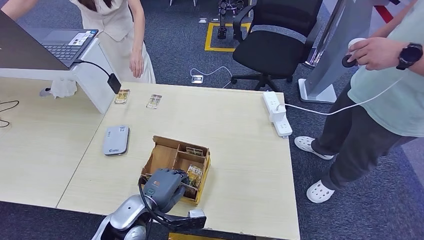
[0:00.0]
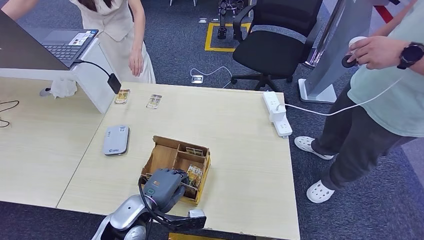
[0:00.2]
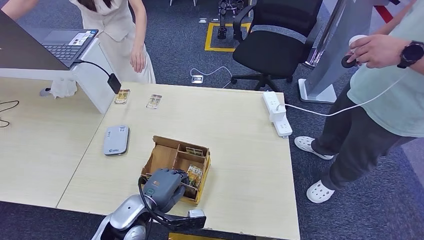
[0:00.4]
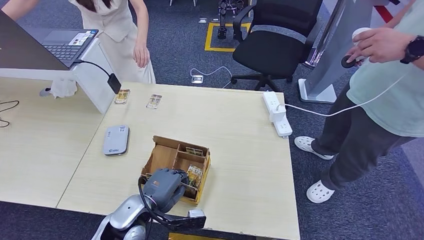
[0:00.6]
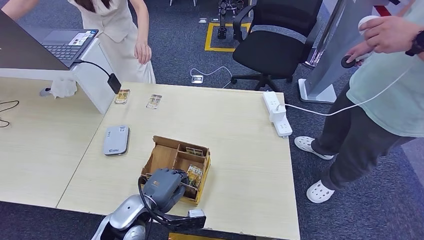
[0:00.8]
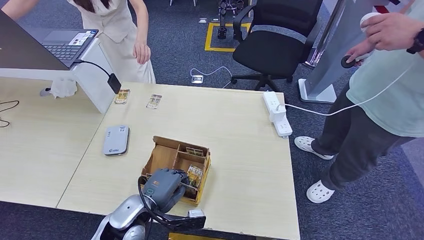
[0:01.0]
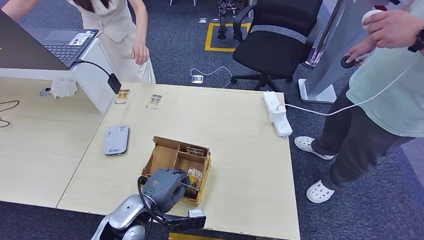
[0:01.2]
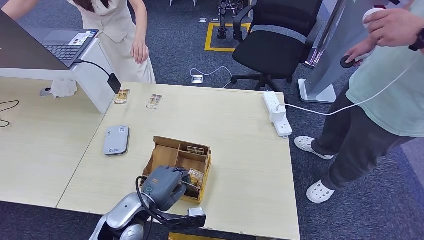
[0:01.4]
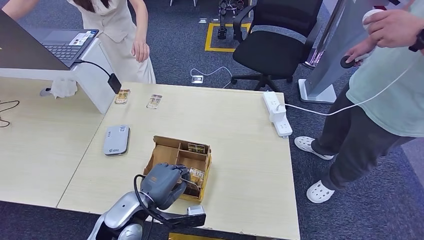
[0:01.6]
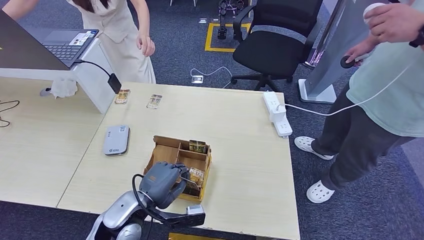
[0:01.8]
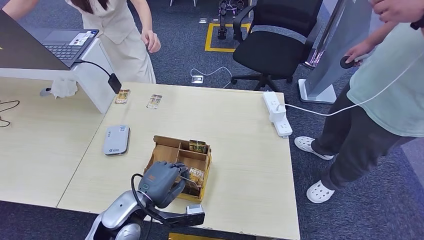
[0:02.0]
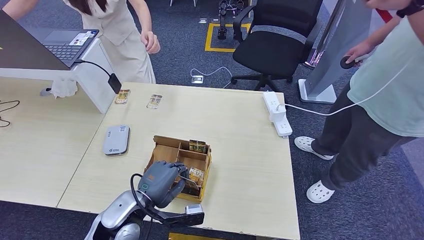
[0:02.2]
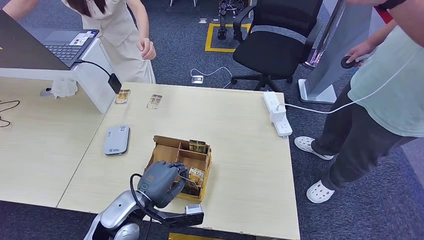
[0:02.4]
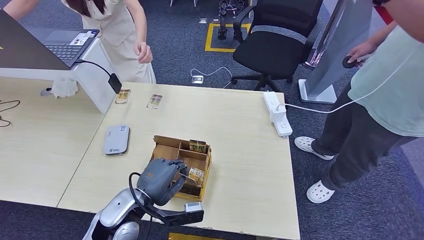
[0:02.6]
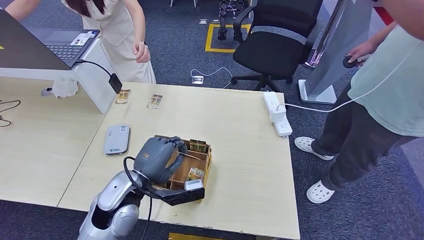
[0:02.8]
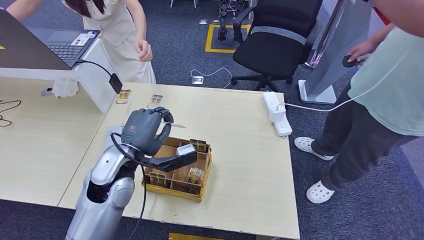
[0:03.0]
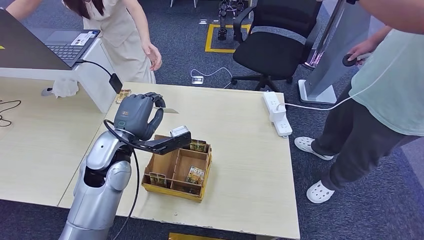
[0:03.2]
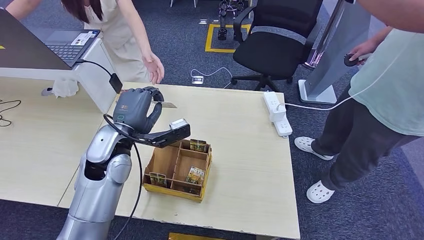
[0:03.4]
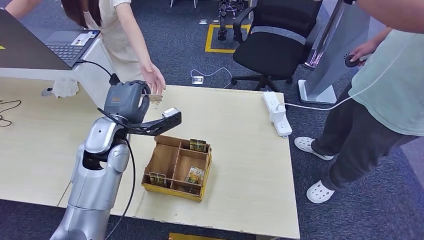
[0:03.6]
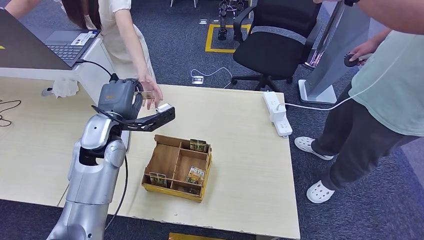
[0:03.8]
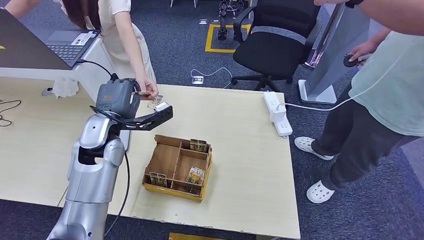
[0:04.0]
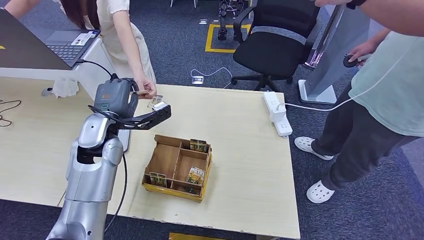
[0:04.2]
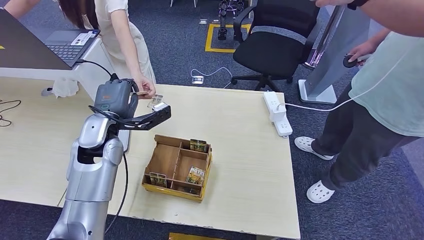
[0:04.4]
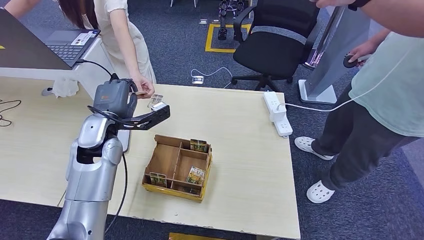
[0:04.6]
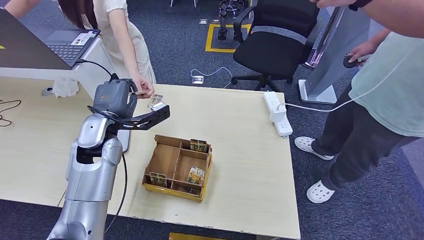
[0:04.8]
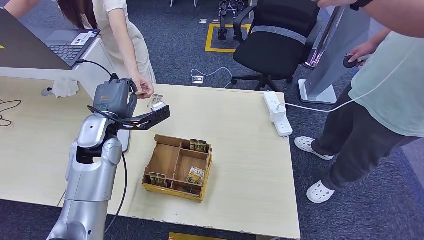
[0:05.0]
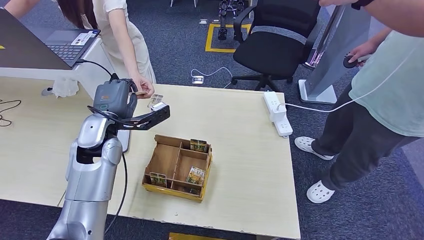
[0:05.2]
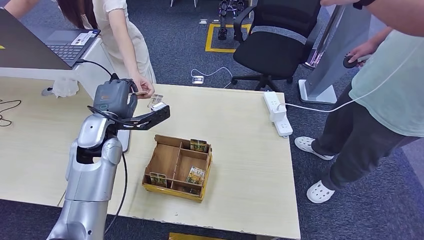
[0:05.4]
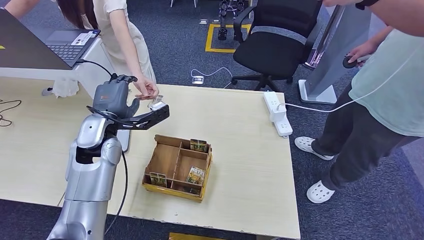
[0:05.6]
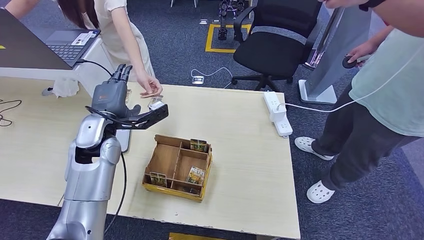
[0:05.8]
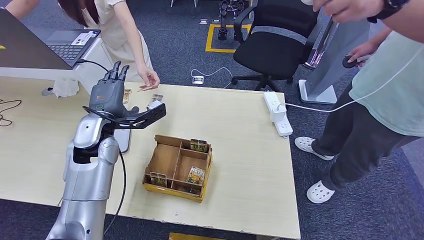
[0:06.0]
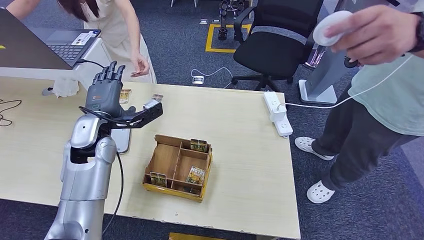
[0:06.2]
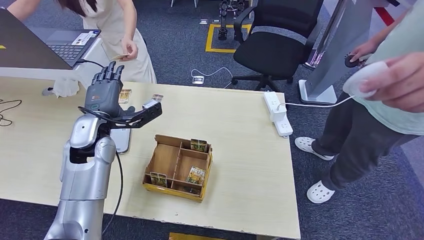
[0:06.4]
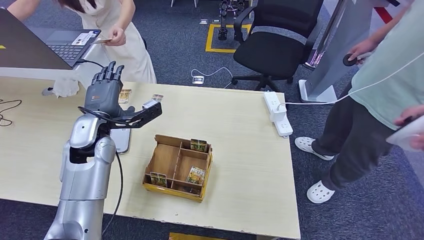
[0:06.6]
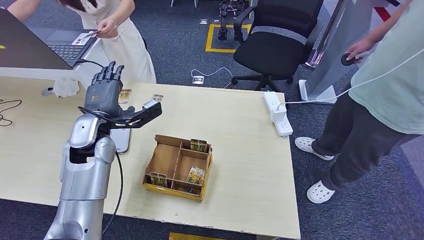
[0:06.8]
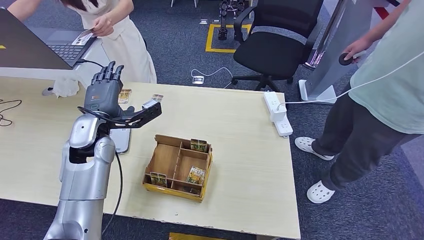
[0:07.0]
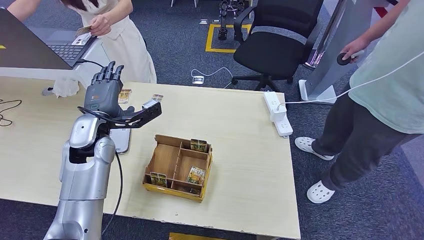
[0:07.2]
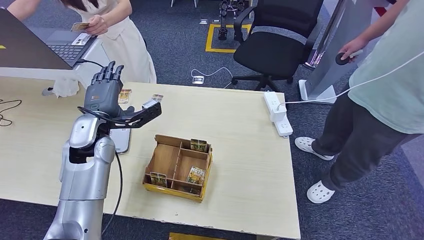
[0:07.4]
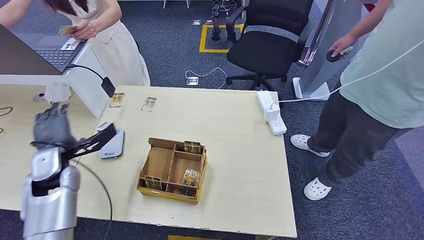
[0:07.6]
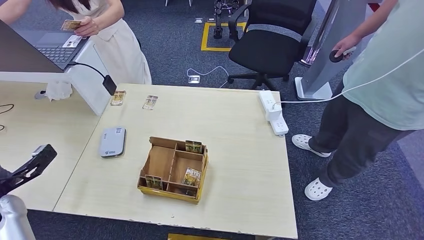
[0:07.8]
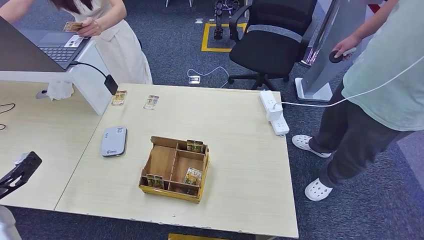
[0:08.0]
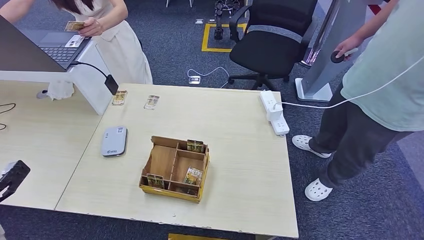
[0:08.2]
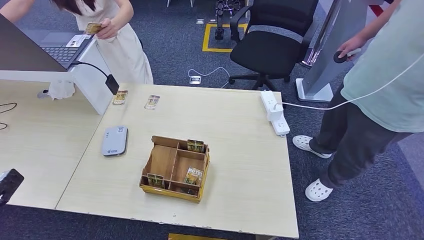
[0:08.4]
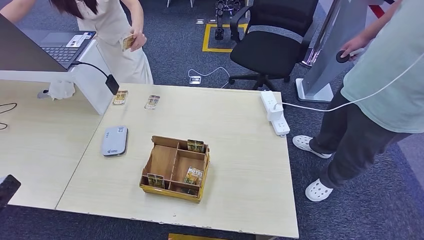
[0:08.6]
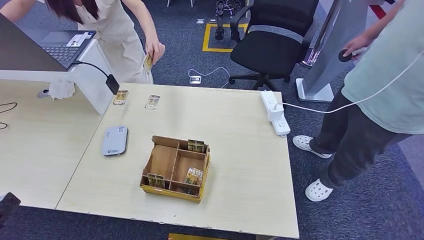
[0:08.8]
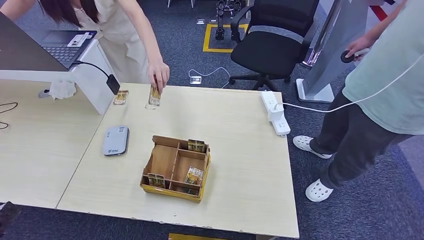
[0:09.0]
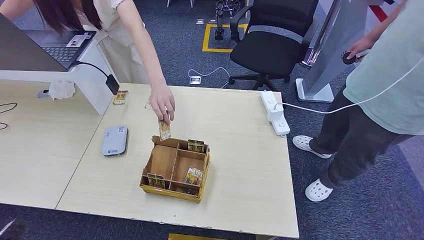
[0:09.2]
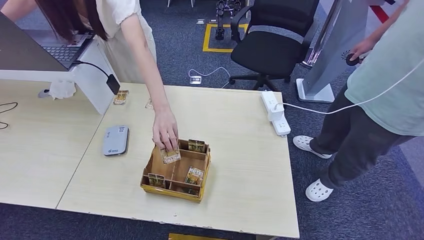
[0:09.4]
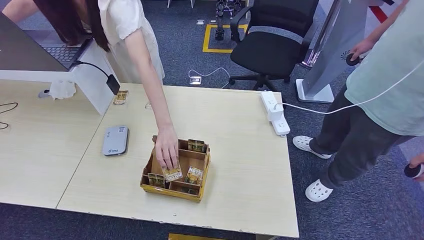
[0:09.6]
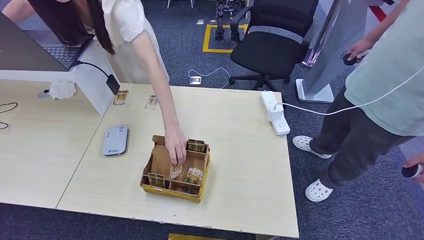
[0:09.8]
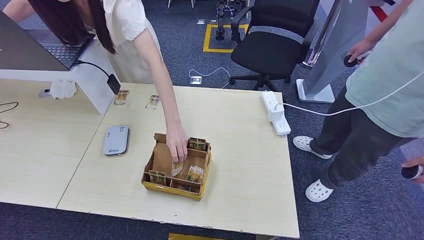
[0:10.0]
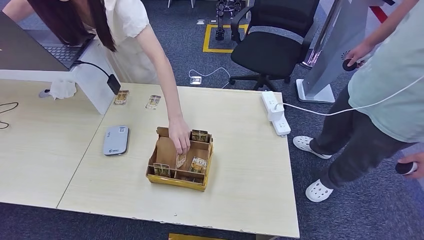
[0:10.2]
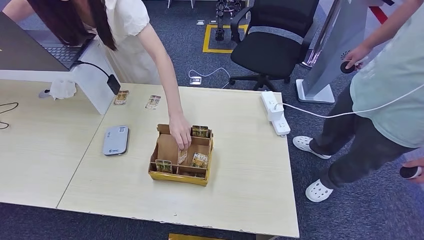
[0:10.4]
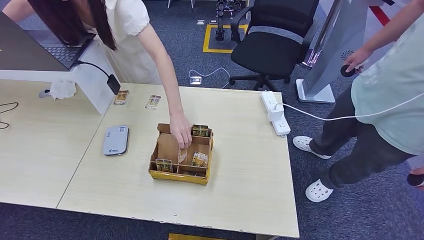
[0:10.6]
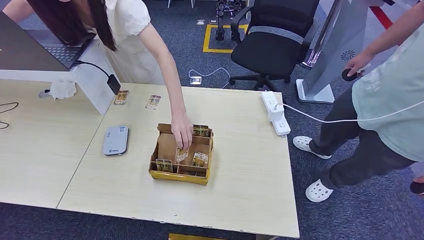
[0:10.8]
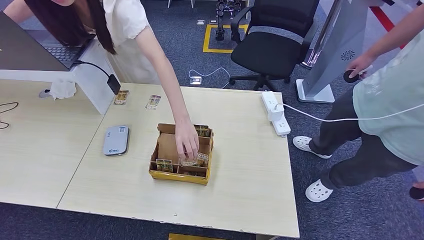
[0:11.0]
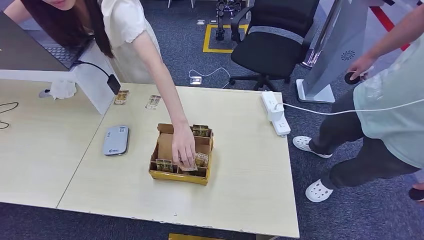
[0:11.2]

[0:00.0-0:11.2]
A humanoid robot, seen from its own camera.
Step, 0:00.0 to 0:02.0: Pick up the room key from the key card box.
Step, 0:02.4 to 0:11.0: Hand the room key to the person.
0:00.0 to 0:01.6: The hands make only small movements.
0:01.6 to 0:03.2: The left hand goes roughly 15 cm upward and forward.
0:03.2 to 0:04.8: The left hand shifts by about 5 cm.
0:04.8 to 0:06.4: The hands make only small movements.
0:08.0 to 0:09.6: The left hand travels backward and downward by some 20 cm.
0:09.6 to 0:11.2: The left hand is displaced to the right and downward by some 20 cm. Meanwhile the right hand travels downward and to the left by roughly 10 cm.
